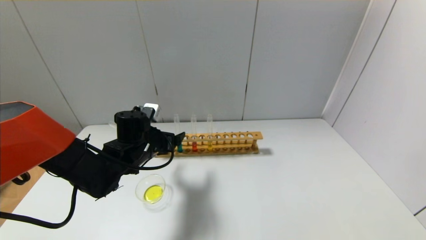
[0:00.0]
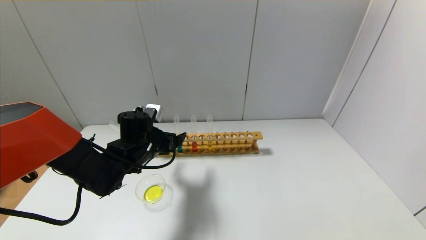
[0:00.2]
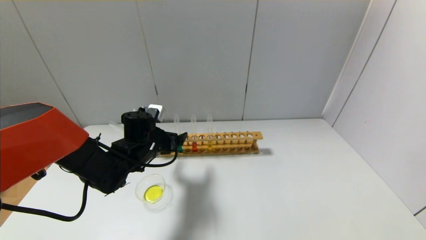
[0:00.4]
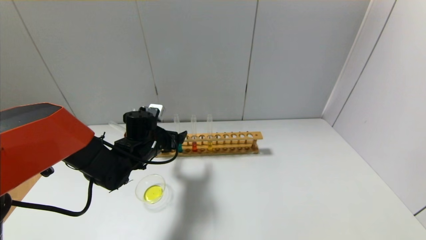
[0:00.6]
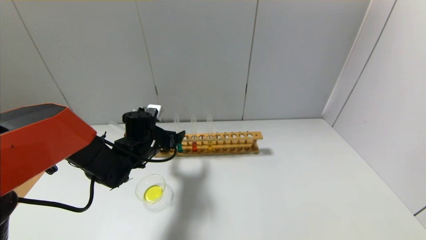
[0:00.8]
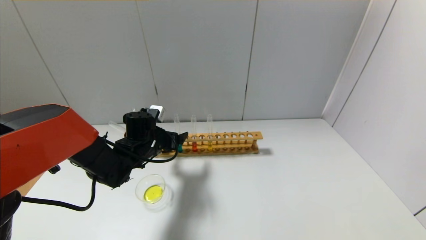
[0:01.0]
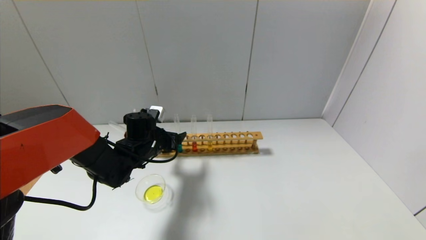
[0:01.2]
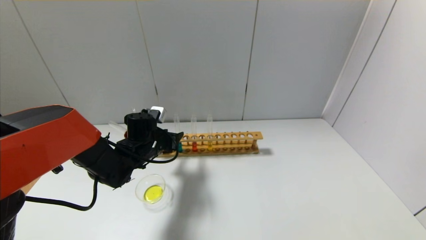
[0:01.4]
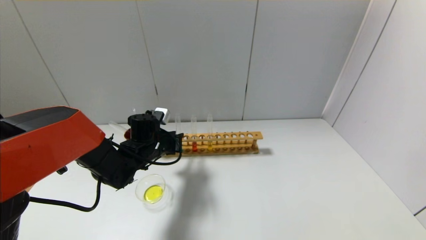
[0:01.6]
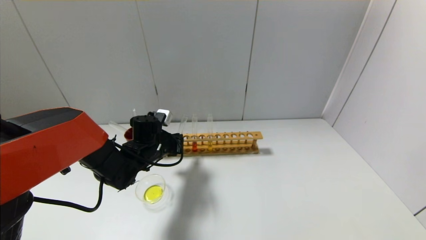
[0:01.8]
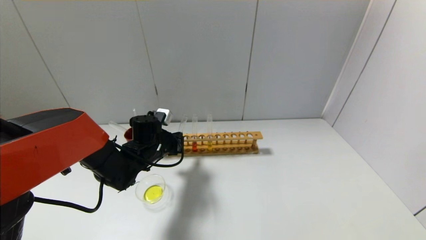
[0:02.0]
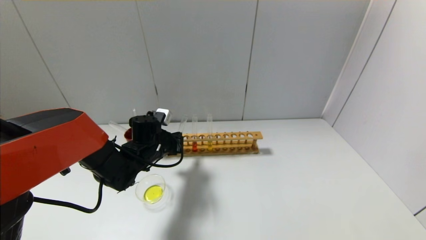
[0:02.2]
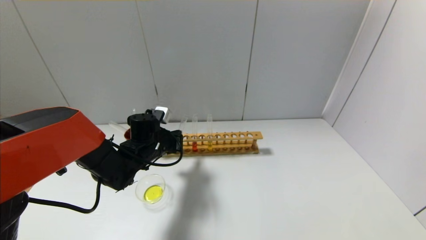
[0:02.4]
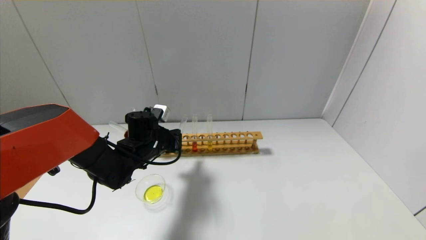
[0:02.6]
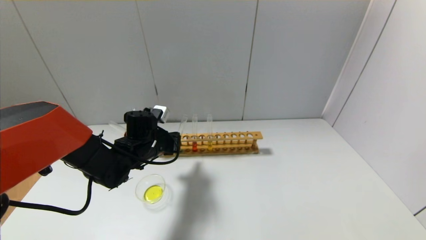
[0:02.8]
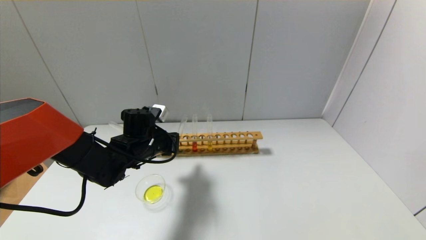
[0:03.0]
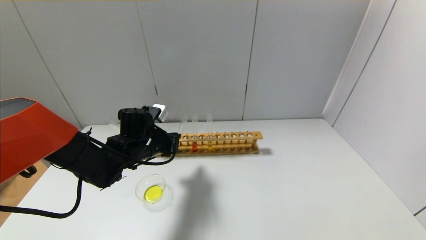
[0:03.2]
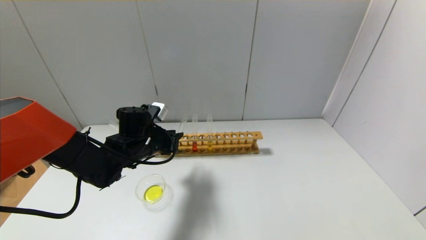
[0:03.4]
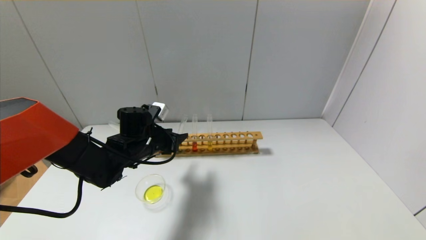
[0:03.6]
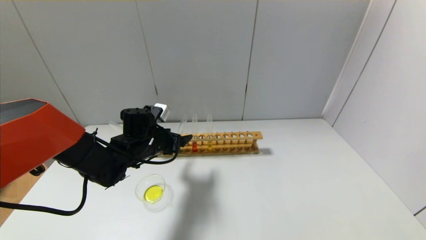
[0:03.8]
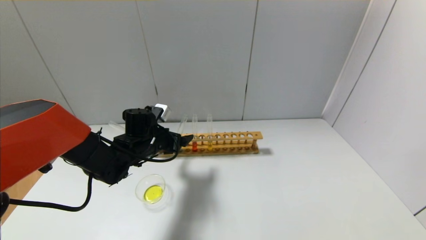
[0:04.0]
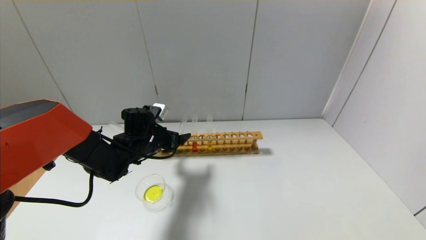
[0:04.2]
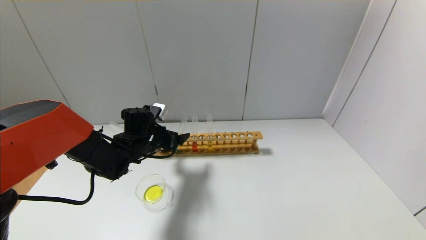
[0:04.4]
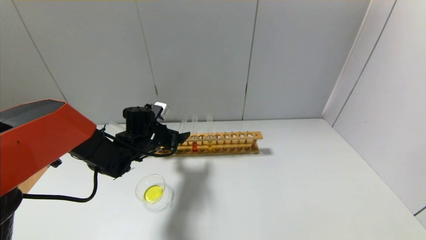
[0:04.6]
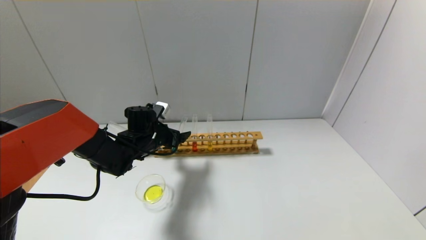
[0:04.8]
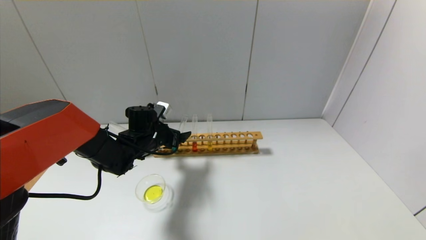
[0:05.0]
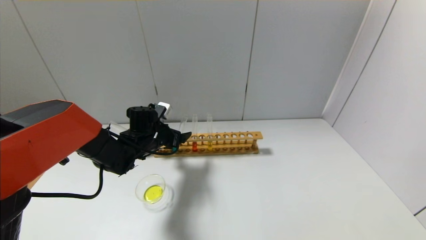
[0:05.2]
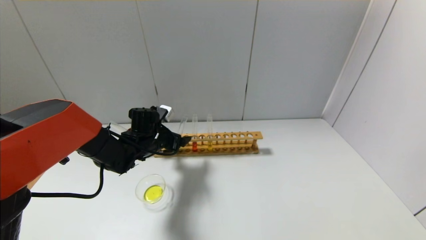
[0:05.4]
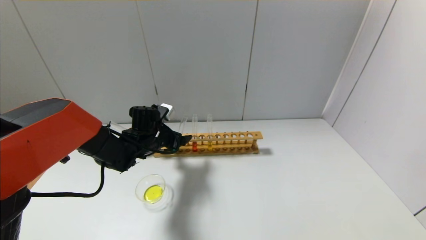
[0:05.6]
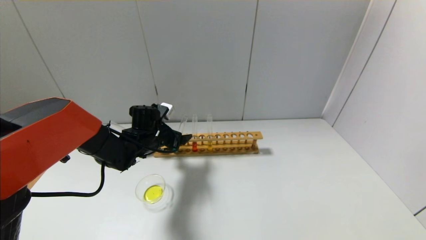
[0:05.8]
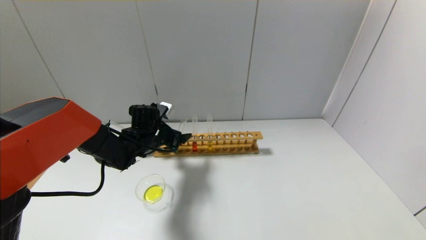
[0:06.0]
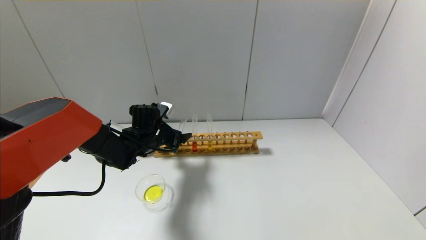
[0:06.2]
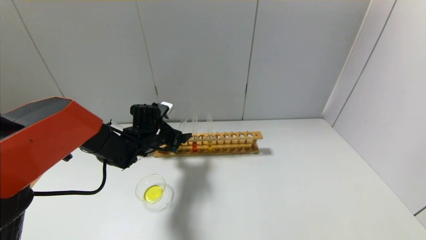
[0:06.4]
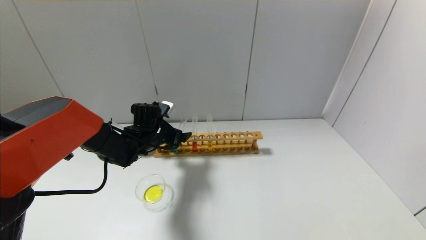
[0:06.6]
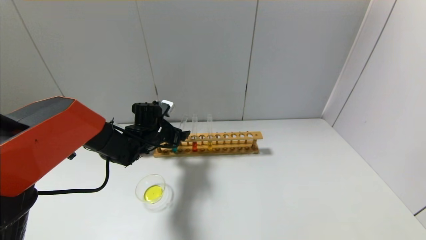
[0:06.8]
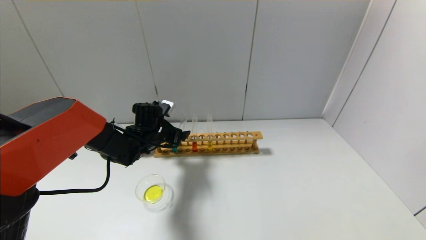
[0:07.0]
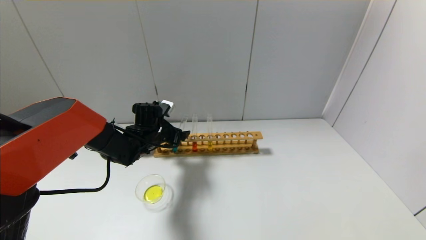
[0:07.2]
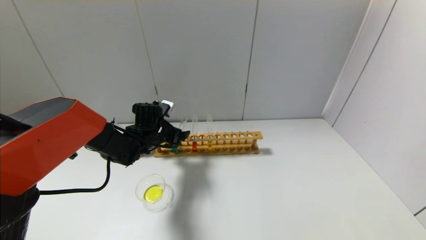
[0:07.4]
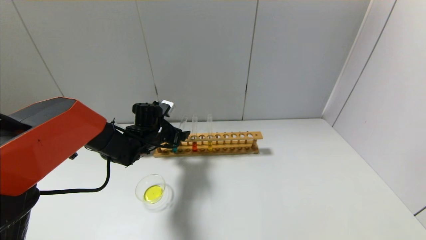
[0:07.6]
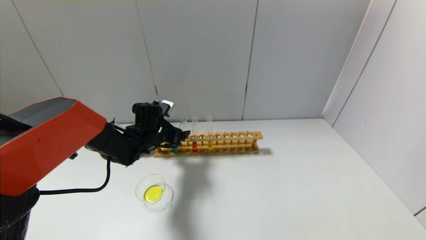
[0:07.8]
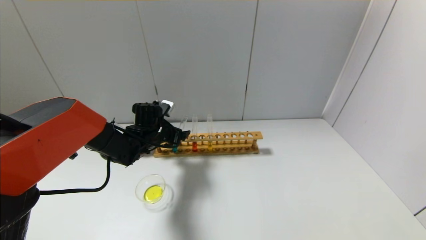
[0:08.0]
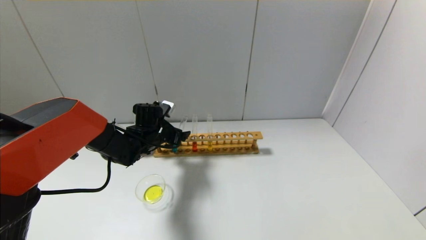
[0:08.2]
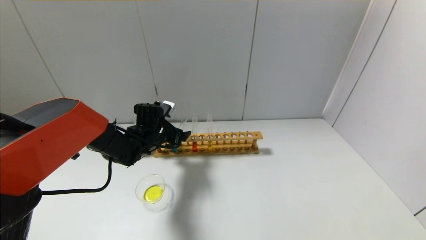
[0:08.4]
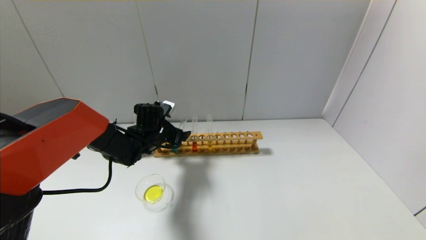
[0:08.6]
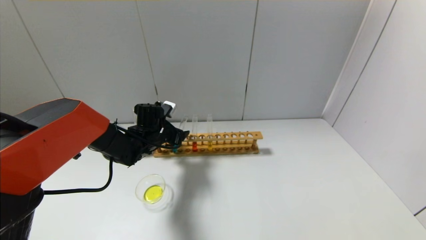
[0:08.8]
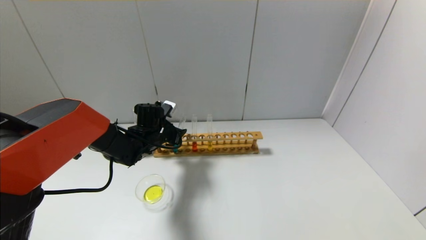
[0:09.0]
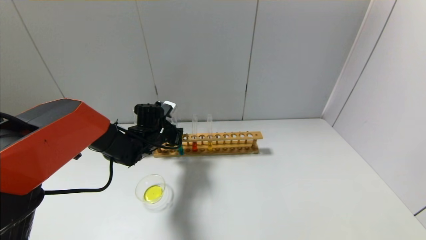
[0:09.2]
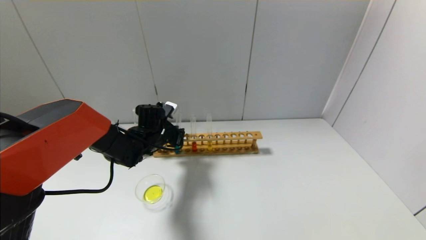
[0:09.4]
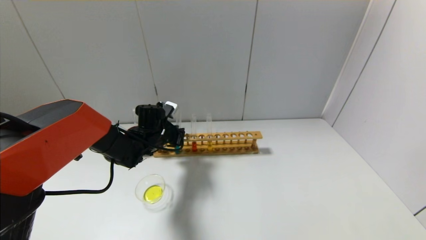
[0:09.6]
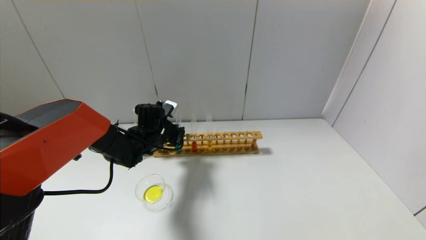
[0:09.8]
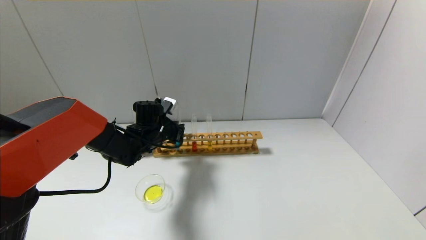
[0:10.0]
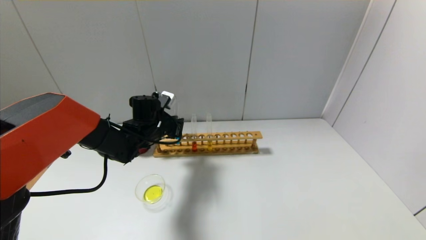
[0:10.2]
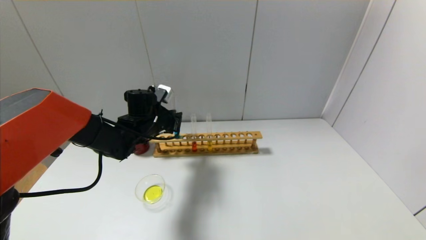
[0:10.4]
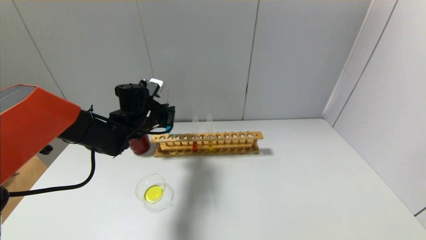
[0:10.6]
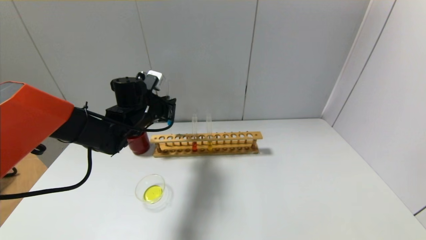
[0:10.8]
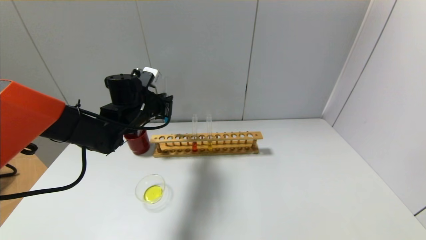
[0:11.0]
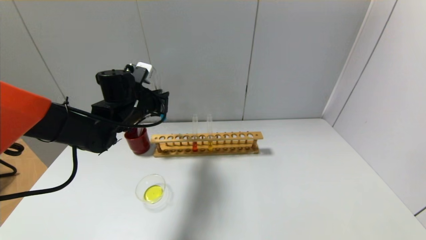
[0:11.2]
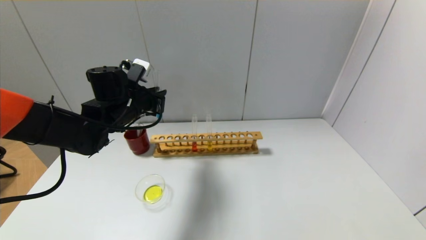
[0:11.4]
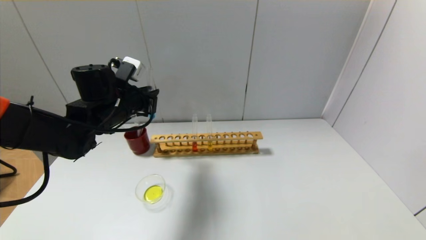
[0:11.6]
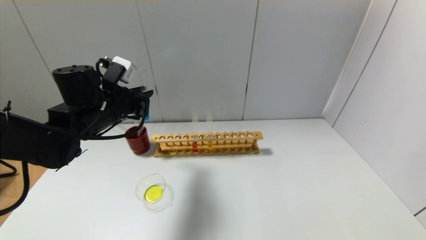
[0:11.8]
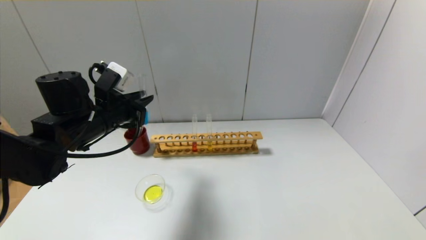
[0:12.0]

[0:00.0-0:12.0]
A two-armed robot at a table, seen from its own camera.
Step, 0:00.0 to 0:09.2: Grasp the blue reagent with the left gripper.
0:00.0 to 0:01.6: The left gripper closes.
0:01.6 to 0:03.0: There are only small adjustments of the grippers.
0:03.0 to 0:04.4: The left gripper opens up.
0:04.4 to 0:06.0: The grippers stay close to where they were, moving slightly.
0:06.0 to 0:07.6: Both grippers stay about where they are.
0:07.6 to 0:09.0: The left gripper closes its fingers.
0:09.0 to 0:10.4: The left gripper goes some 5 cm upward, and closes its fingers.
0:10.4 to 0:12.0: The left gripper heads backward, upward and to the left, covering approximately 15 cm.

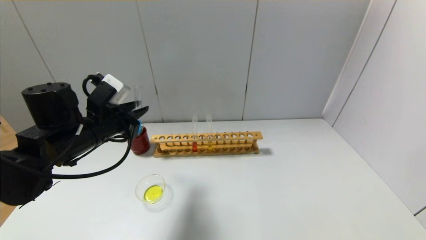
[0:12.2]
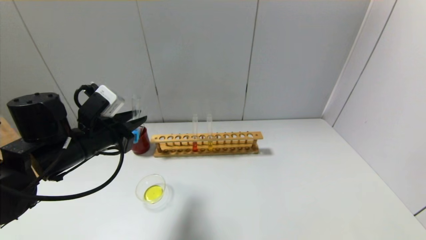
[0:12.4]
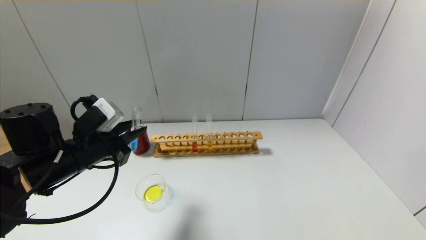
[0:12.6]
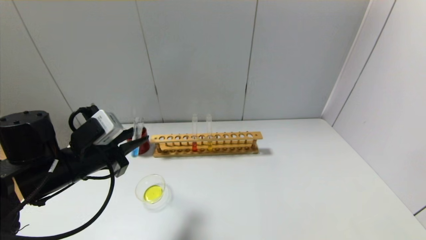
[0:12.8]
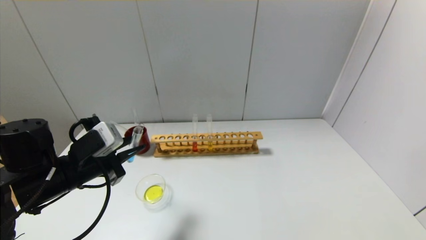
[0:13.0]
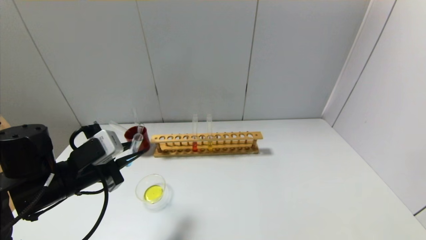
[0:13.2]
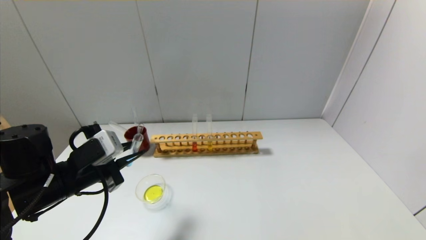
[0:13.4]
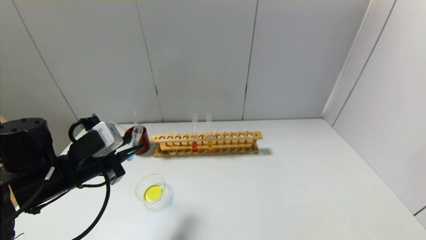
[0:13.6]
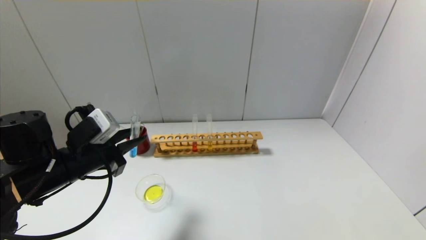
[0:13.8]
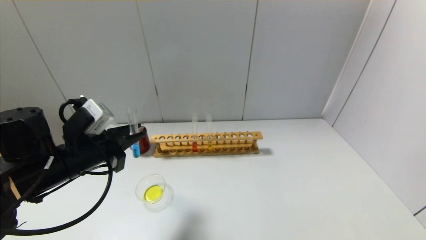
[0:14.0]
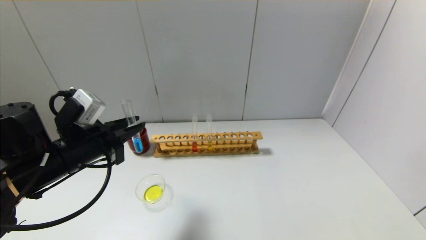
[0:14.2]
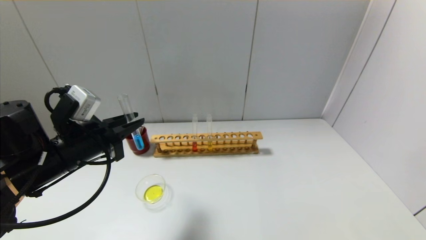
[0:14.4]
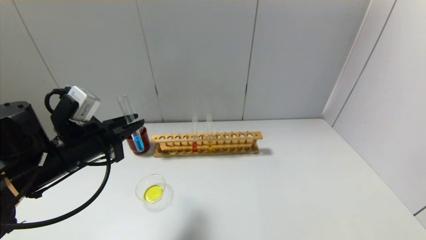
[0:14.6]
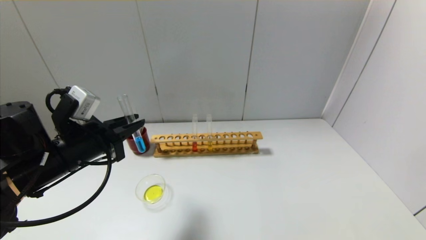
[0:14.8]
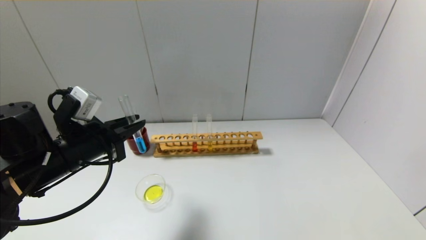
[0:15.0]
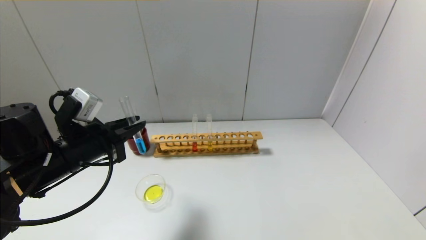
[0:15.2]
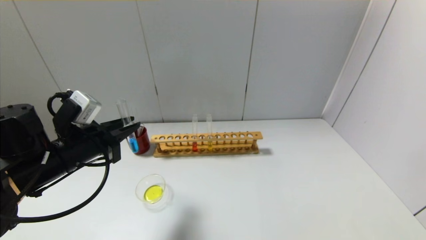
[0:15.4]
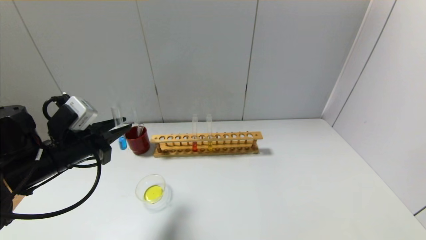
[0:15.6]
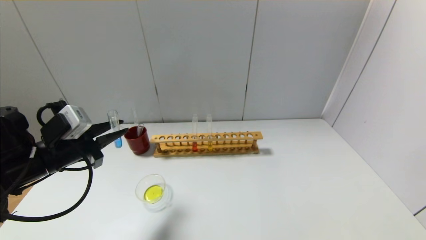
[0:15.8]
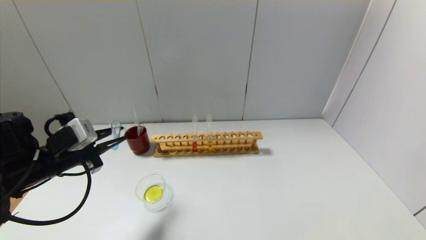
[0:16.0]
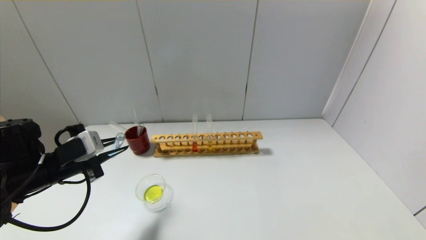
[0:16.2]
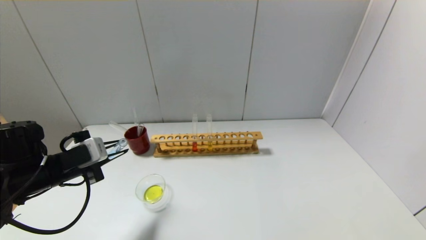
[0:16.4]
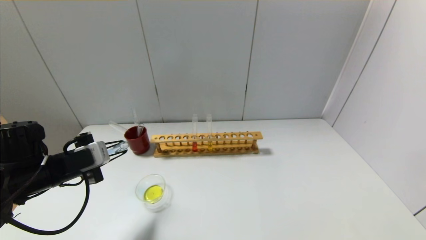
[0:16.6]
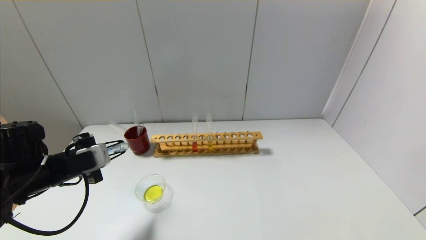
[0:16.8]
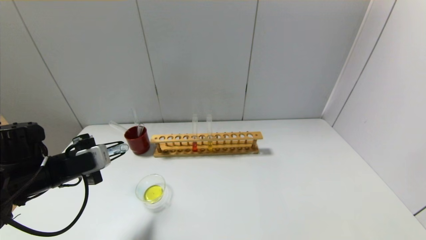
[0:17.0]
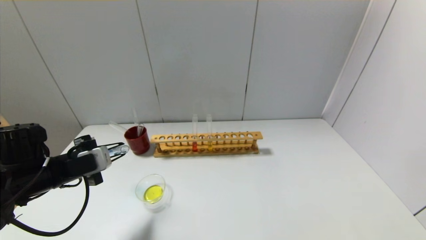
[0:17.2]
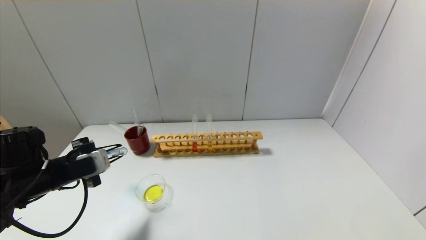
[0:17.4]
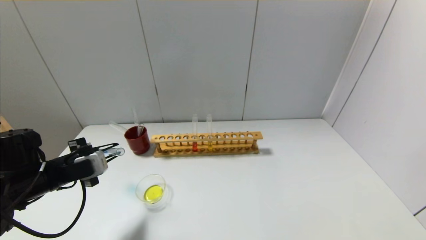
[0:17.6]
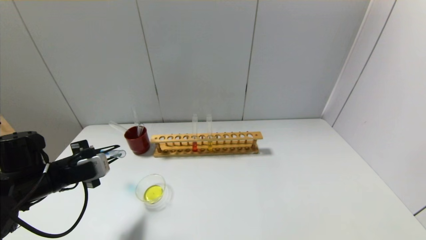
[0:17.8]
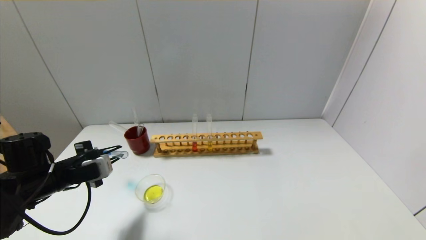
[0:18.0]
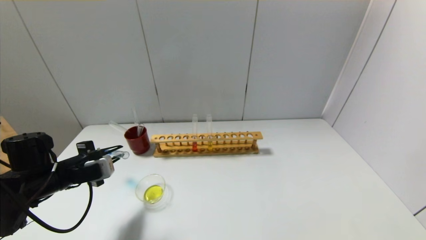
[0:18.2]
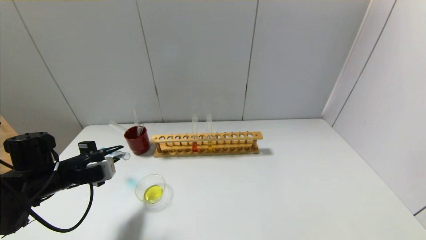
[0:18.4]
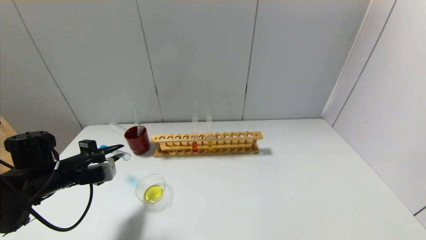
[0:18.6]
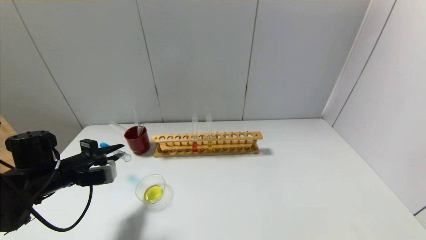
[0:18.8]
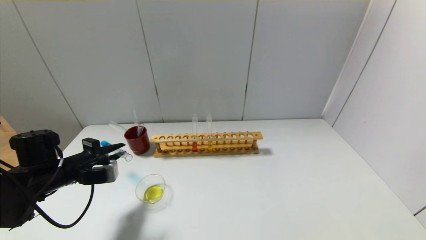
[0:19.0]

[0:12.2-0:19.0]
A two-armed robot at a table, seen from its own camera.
0:12.2 to 0:13.6: The left gripper shifts about 5 cm backward.
0:15.0 to 0:16.2: The left gripper heads to the left, covering about 5 cm.
0:16.2 to 0:17.6: The grippers make only small movements.
0:17.6 to 0:19.0: The grippers move only a little.
